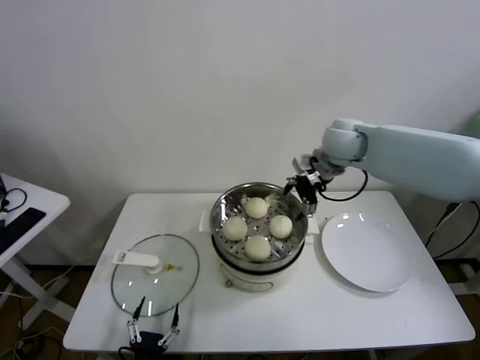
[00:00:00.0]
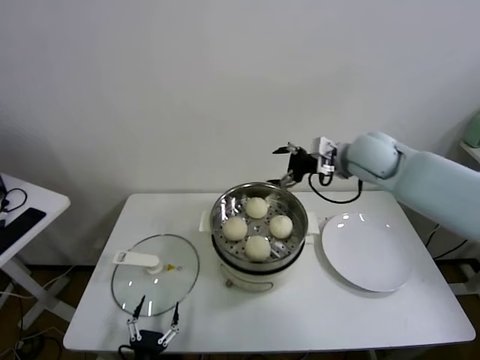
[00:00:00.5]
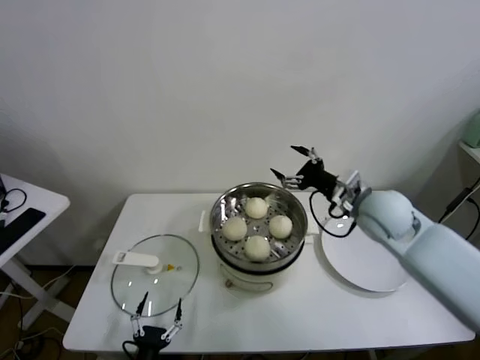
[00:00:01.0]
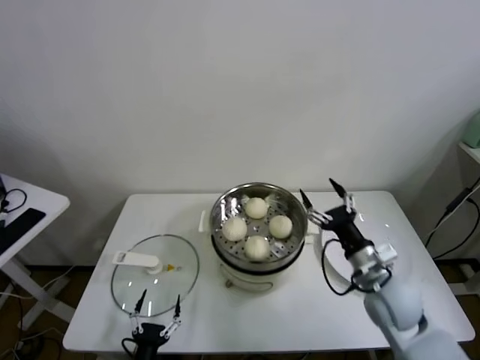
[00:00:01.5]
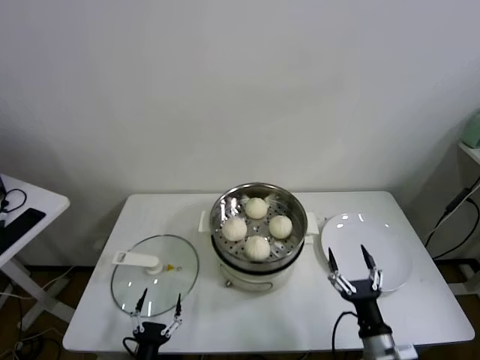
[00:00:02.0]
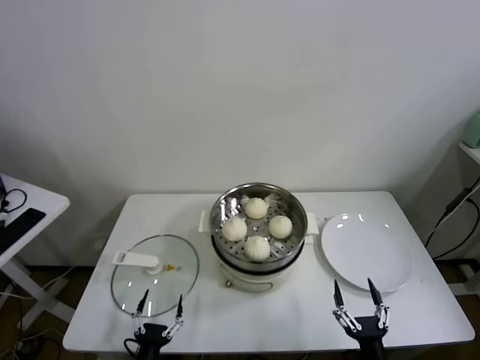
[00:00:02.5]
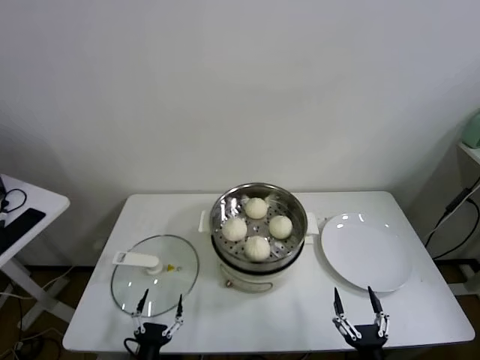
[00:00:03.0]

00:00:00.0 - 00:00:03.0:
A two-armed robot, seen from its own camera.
Task of the whole recording: take steamed baozi put them in steamer.
00:00:00.0 - 00:00:01.5: The right gripper goes about 30 cm backward and downward.
00:00:01.5 - 00:00:03.0: The right gripper goes some 30 cm backward and downward.

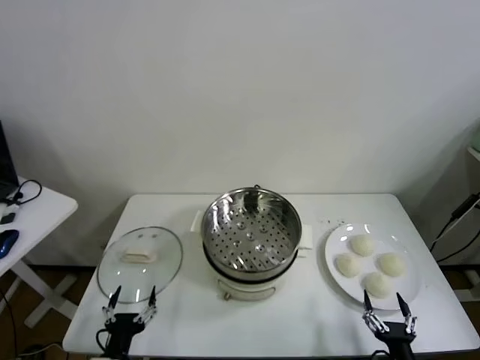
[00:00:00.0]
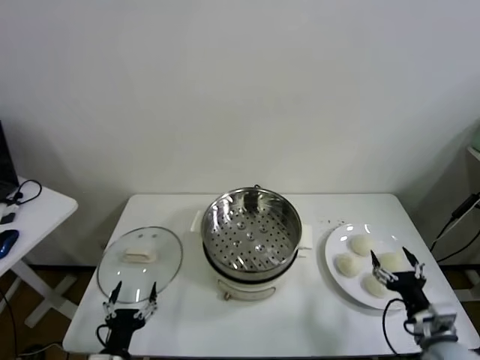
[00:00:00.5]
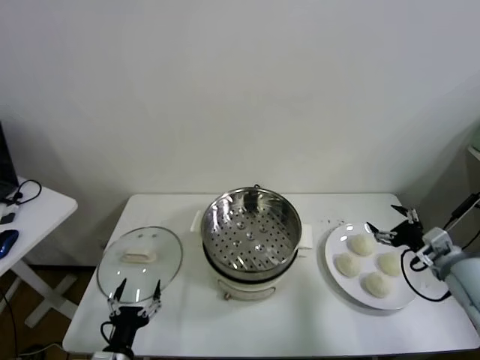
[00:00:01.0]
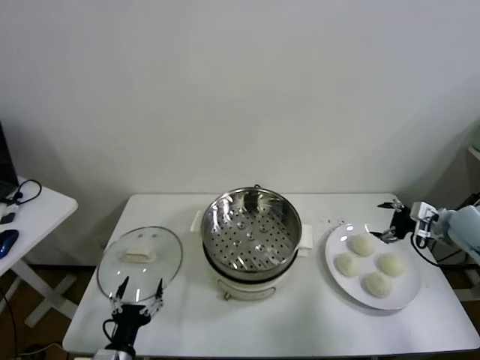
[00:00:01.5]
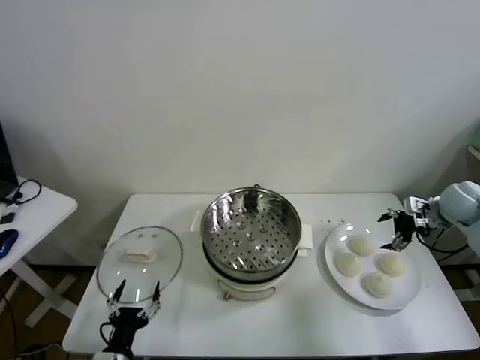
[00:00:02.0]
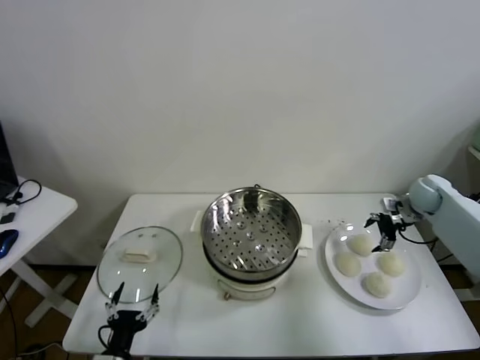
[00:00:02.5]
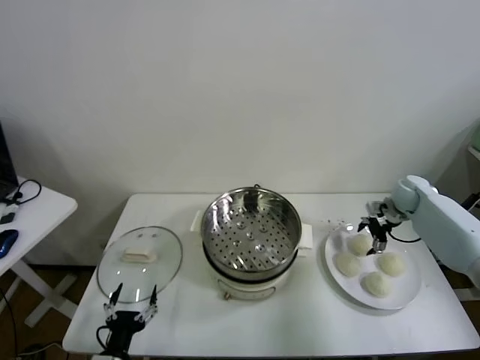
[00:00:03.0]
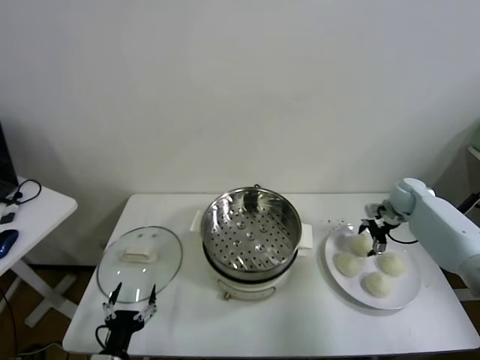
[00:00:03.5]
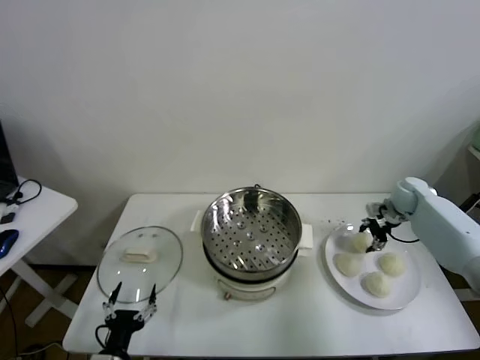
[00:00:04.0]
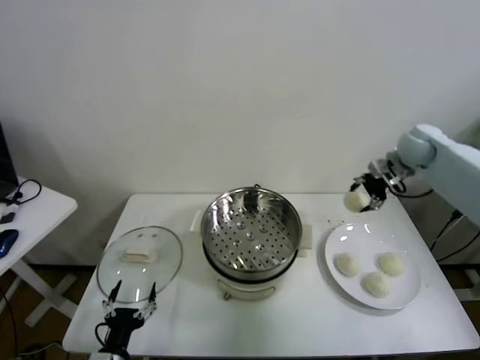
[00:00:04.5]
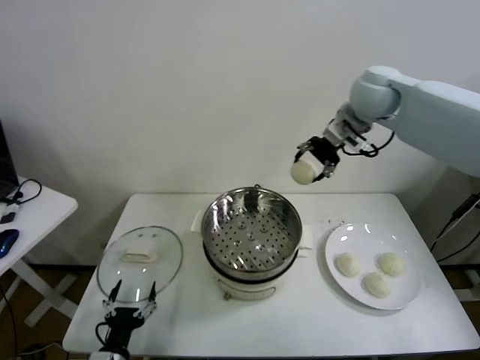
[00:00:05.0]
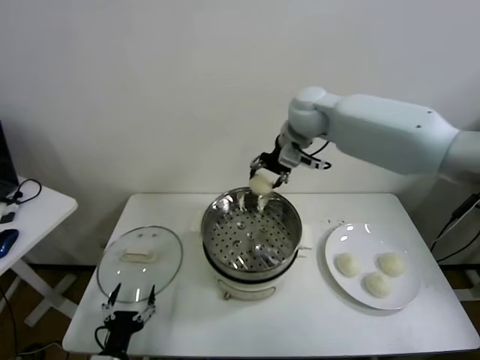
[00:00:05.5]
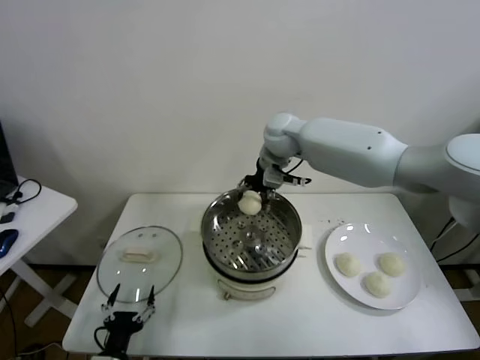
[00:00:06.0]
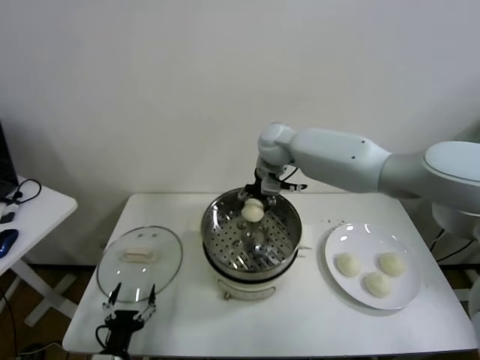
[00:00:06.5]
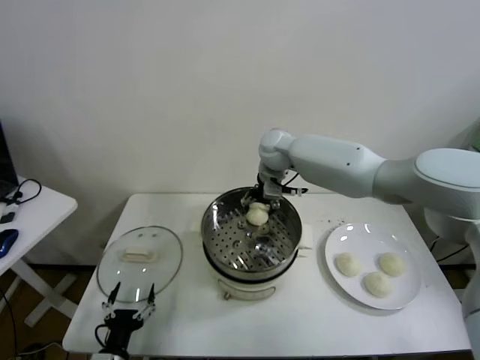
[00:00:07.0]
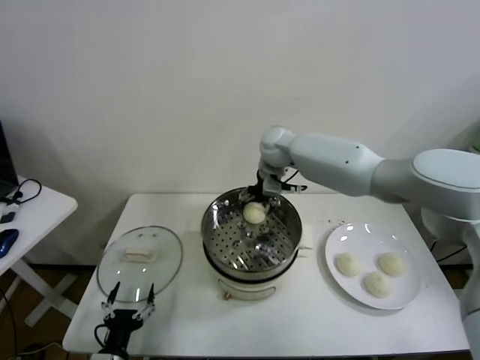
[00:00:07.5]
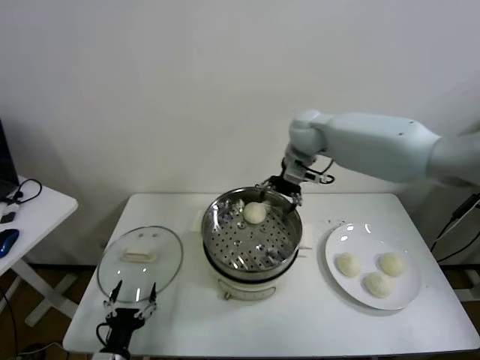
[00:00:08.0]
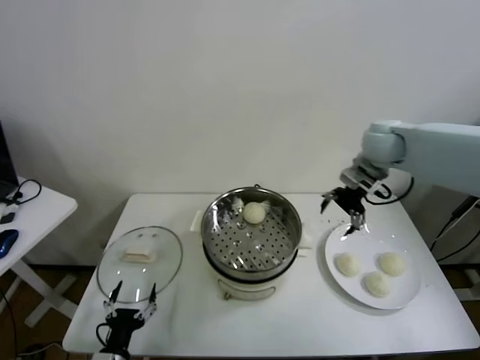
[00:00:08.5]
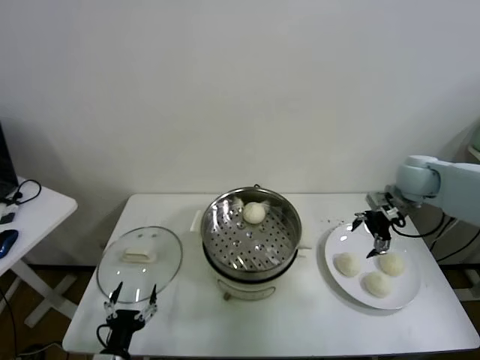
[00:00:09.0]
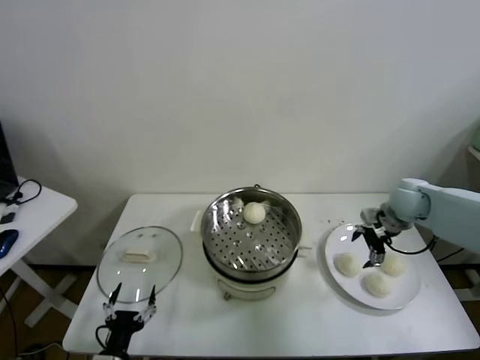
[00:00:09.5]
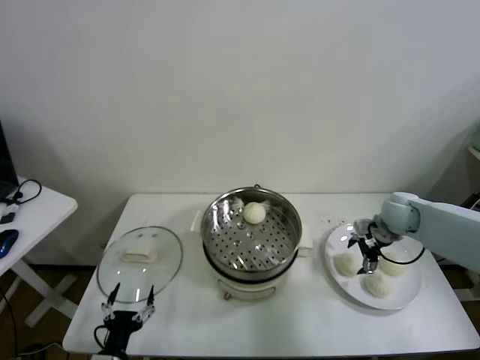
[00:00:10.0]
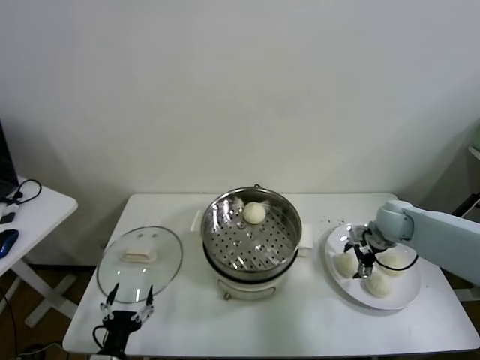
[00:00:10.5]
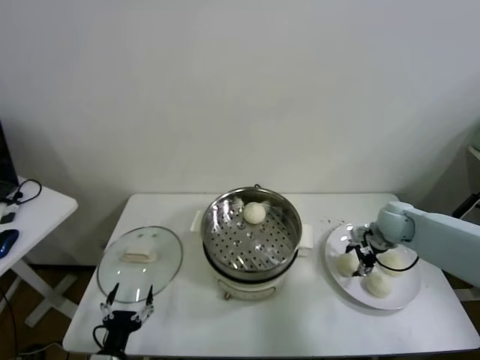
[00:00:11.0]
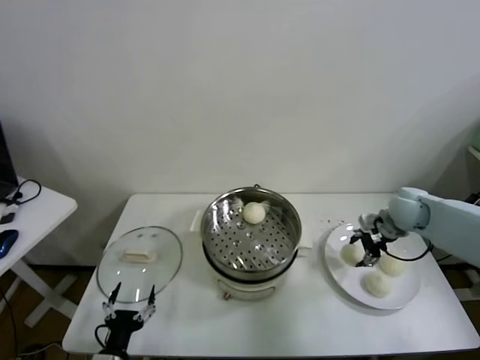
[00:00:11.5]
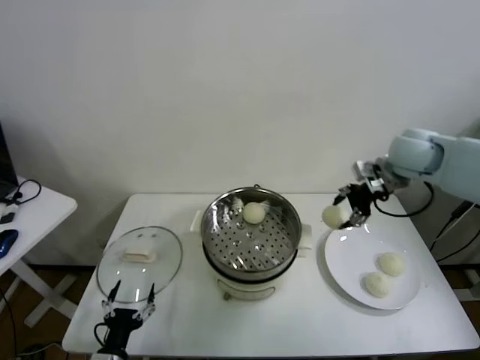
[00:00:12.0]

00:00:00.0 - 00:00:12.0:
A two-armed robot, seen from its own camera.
Task of the whole recording: take steamed baozi put them in steamer.
Step, 00:00:00.0 - 00:00:04.0: Grasp the baozi in the plate with right gripper.
Step, 00:00:04.5 - 00:00:07.5: Place the baozi on the steamer with right gripper.
Step, 00:00:08.0 - 00:00:11.0: Grasp the baozi in the plate with right gripper.
00:00:02.0 - 00:00:04.0: The right gripper moves forward, approximately 5 cm, and closes.
00:00:04.0 - 00:00:06.0: The right gripper shifts about 40 cm to the left and upward.
00:00:06.0 - 00:00:08.0: The right gripper travels to the right by some 10 cm, and opens up.
00:00:08.0 - 00:00:10.0: The right gripper is displaced to the right, downward and backward by about 30 cm.
00:00:10.0 - 00:00:12.0: The right gripper shifts about 20 cm upward, and closes.

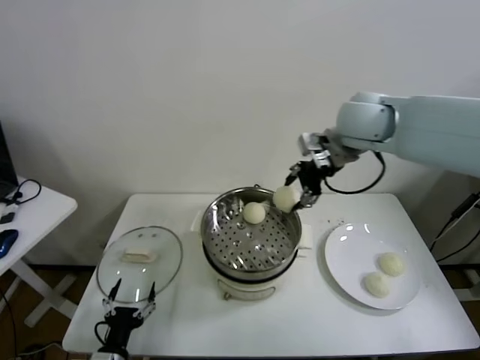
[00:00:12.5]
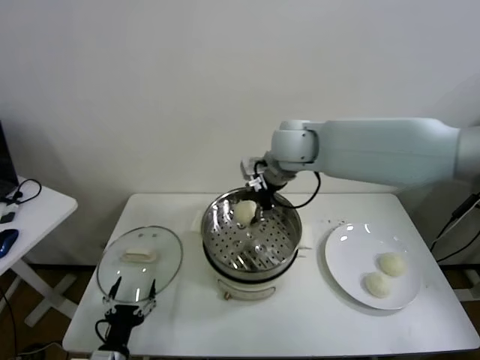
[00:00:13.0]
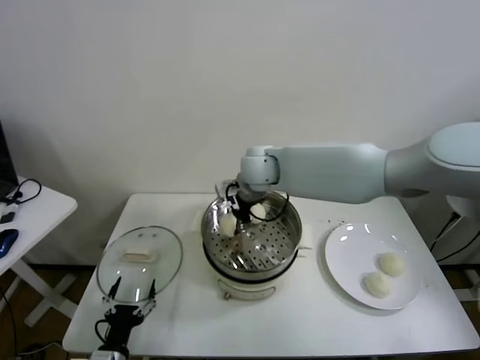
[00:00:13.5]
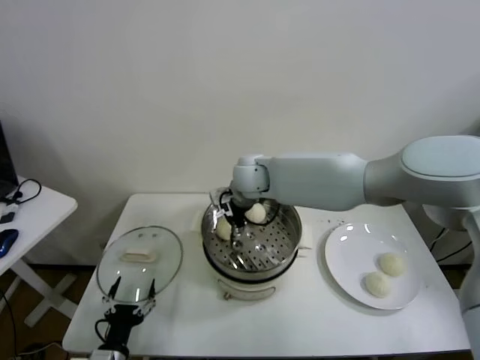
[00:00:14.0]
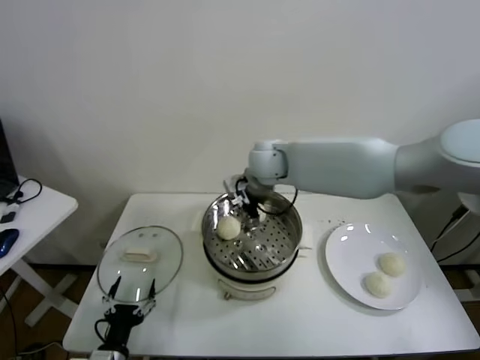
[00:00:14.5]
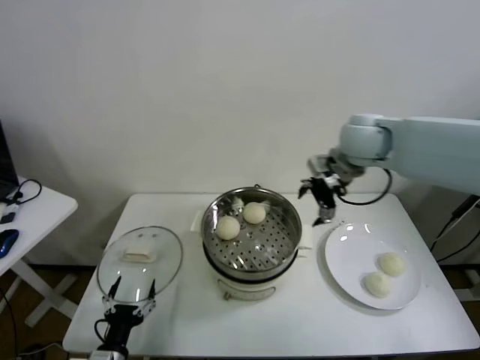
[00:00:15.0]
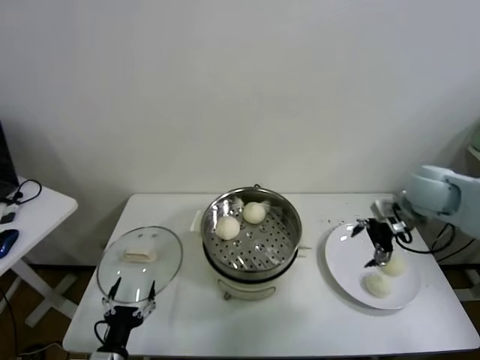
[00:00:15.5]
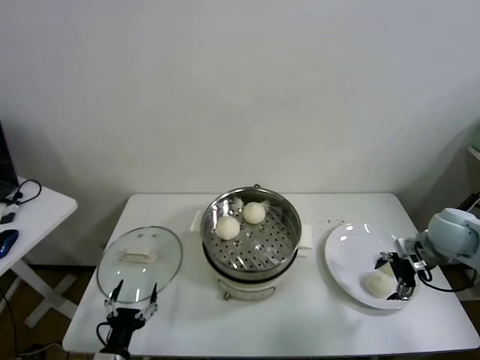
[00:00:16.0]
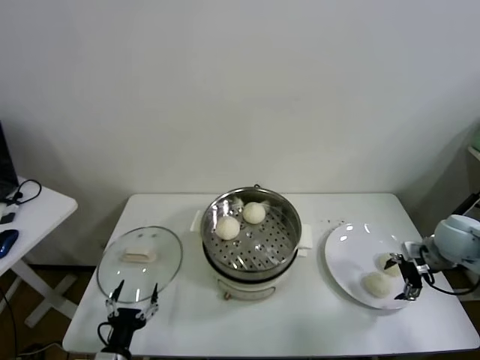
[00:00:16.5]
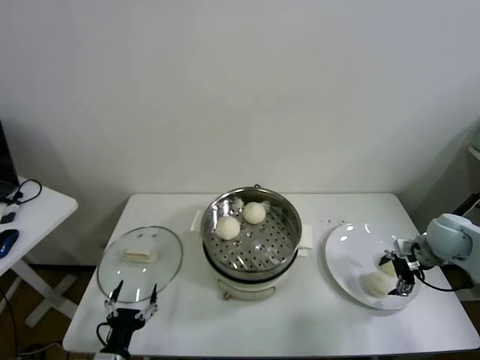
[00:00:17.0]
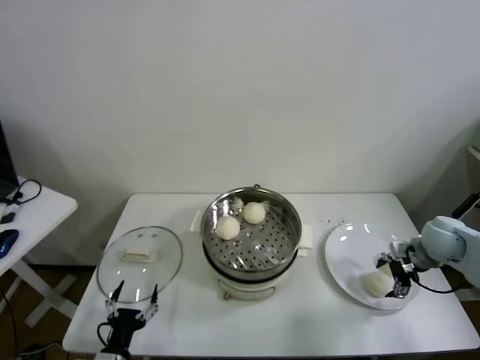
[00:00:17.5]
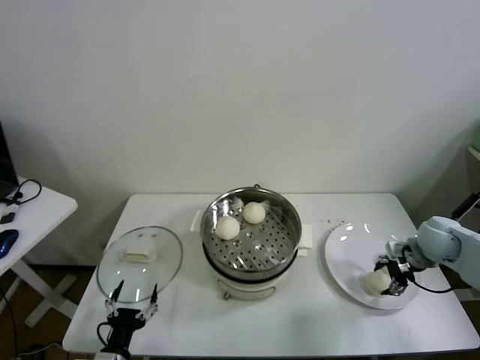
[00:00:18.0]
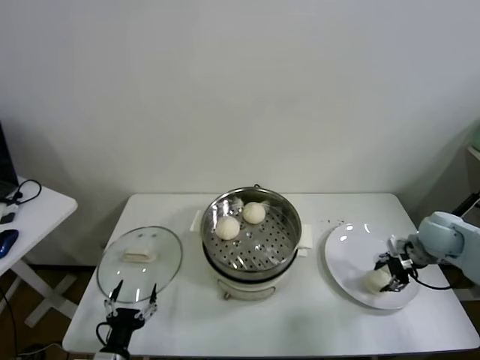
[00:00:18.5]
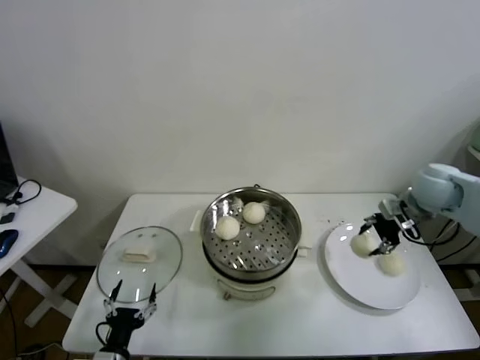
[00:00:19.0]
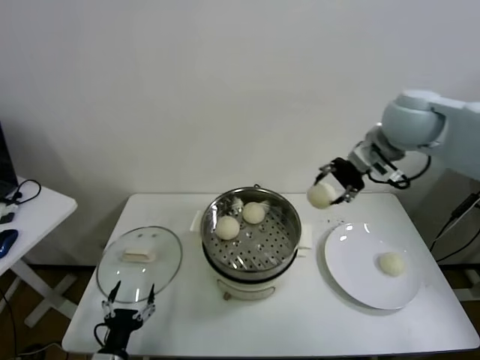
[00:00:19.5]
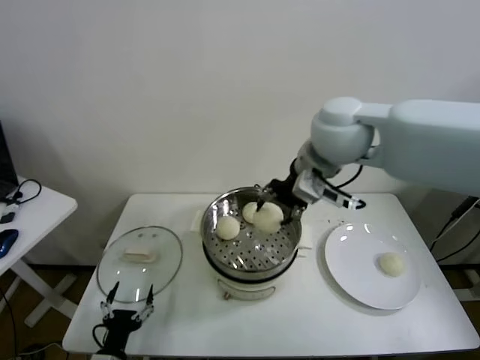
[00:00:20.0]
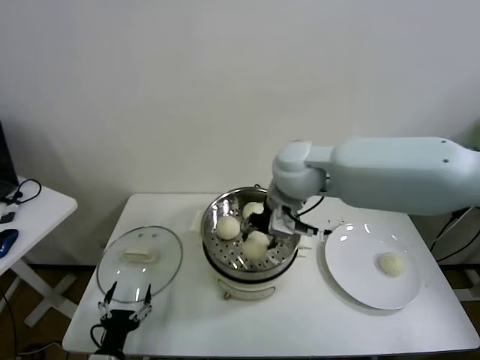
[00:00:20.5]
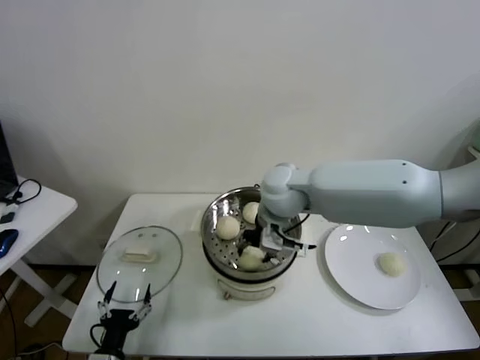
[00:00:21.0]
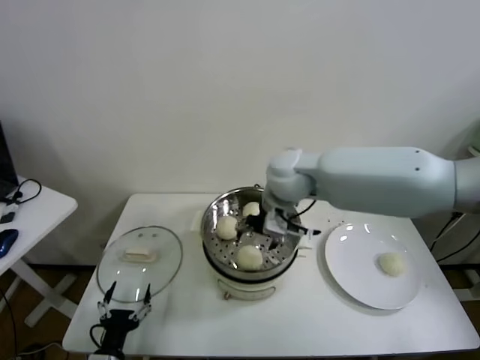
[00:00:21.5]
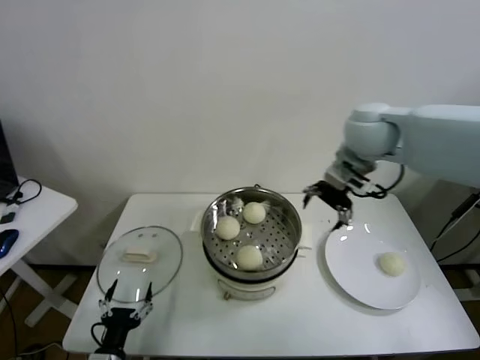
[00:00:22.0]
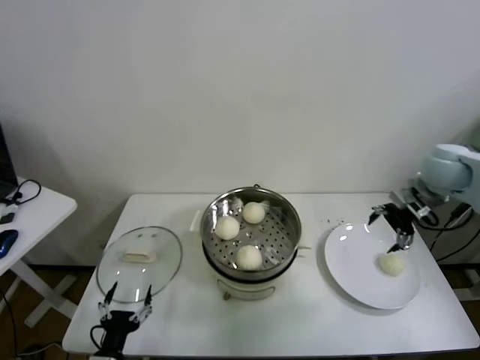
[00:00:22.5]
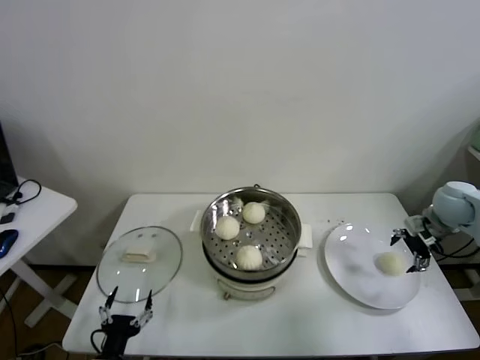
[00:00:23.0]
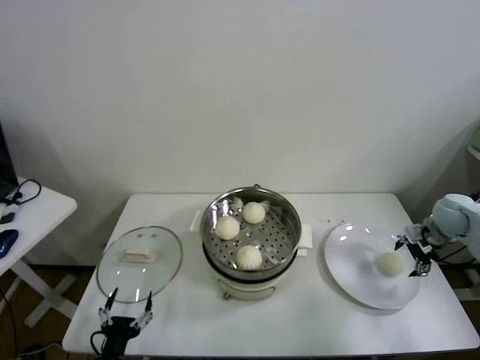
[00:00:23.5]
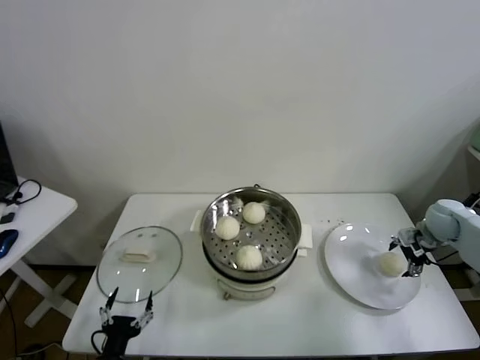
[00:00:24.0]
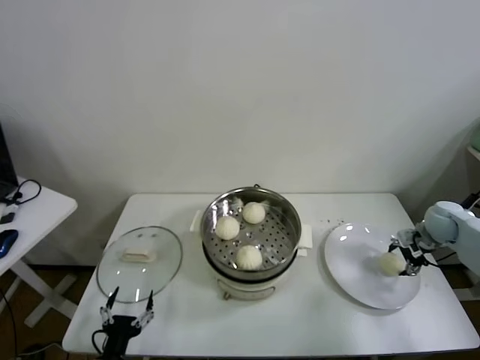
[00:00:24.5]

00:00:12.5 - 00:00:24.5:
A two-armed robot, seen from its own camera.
Task of the whole recording: take steamed baozi put them in steamer.
Step, 00:00:14.5 - 00:00:18.0: Grasp the baozi in the plate with right gripper.
Step, 00:00:18.5 - 00:00:21.0: Place the baozi on the steamer with right gripper.
00:00:12.5 - 00:00:14.5: The right gripper goes some 15 cm to the left and downward, and opens.
00:00:14.5 - 00:00:16.5: The right gripper travels to the right by about 40 cm.
00:00:16.5 - 00:00:18.5: The right gripper closes.
00:00:18.5 - 00:00:20.5: The right gripper travels to the left and upward by roughly 40 cm.
00:00:20.5 - 00:00:22.5: The right gripper goes some 35 cm to the right, and opens up.
00:00:22.5 - 00:00:24.5: The right gripper shifts some 20 cm downward and to the right, and closes its fingers.
